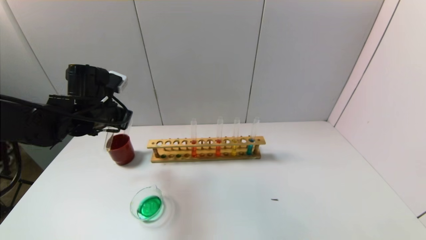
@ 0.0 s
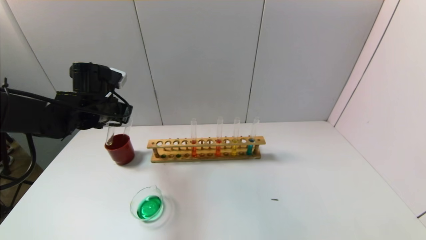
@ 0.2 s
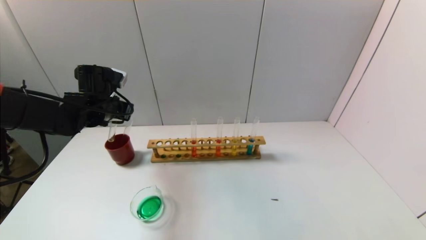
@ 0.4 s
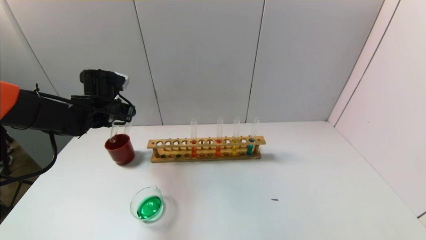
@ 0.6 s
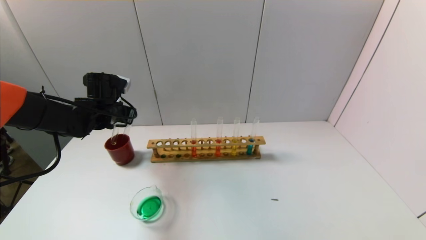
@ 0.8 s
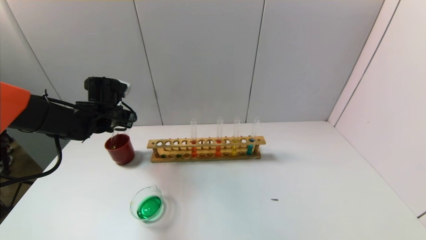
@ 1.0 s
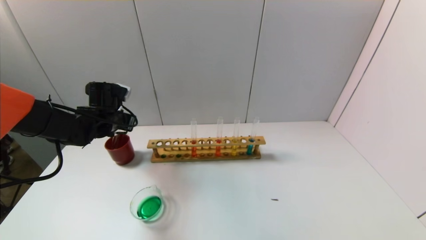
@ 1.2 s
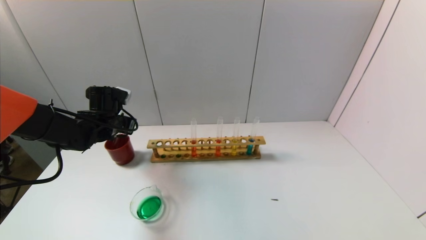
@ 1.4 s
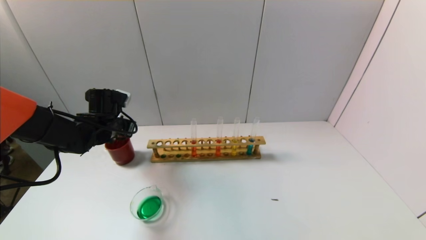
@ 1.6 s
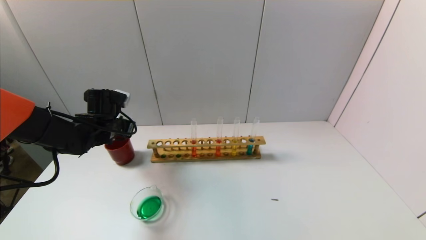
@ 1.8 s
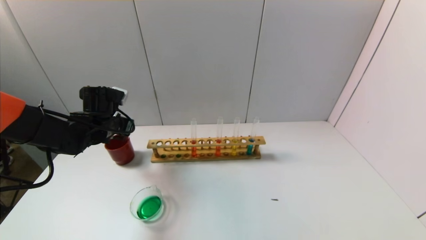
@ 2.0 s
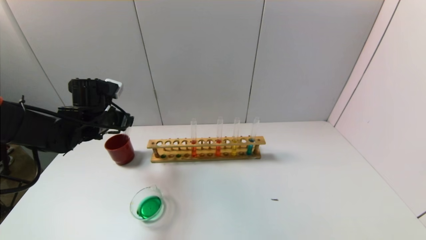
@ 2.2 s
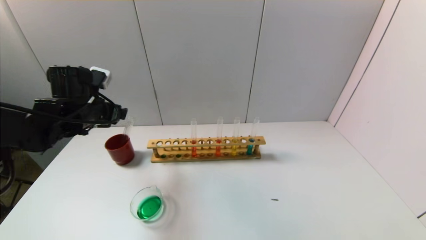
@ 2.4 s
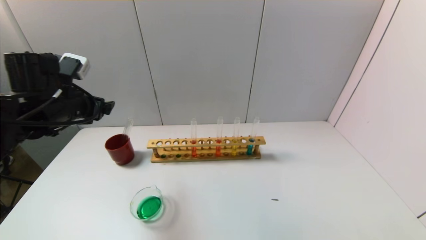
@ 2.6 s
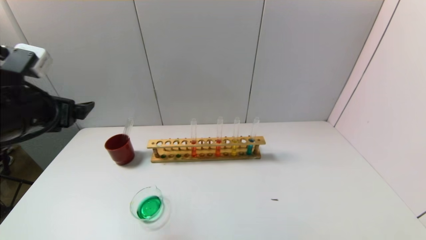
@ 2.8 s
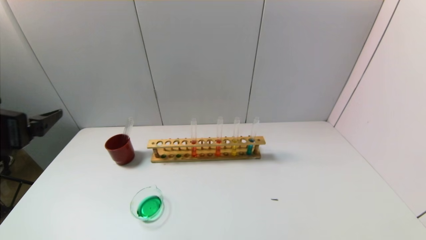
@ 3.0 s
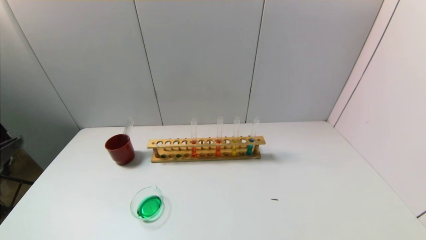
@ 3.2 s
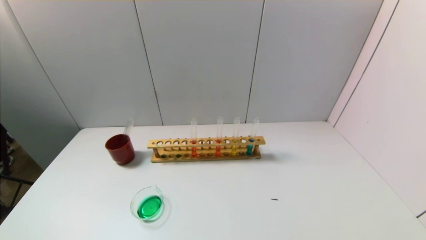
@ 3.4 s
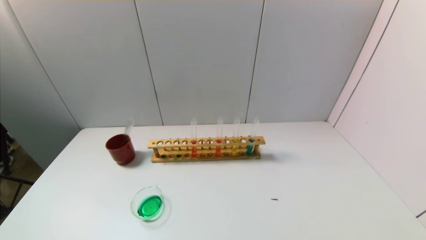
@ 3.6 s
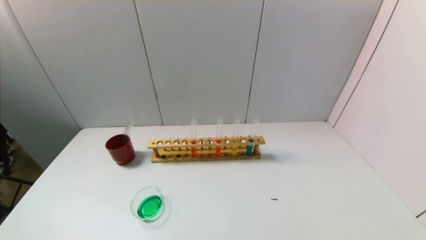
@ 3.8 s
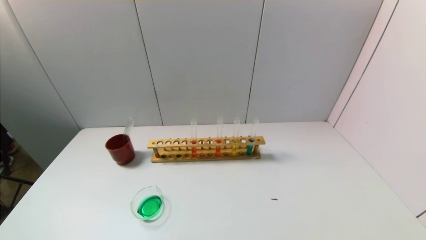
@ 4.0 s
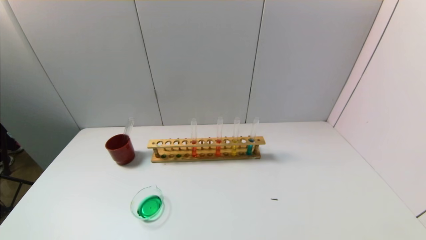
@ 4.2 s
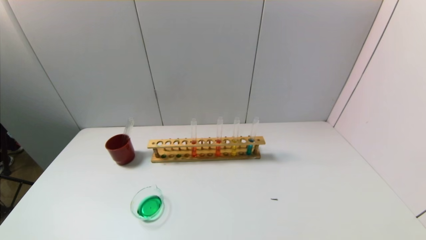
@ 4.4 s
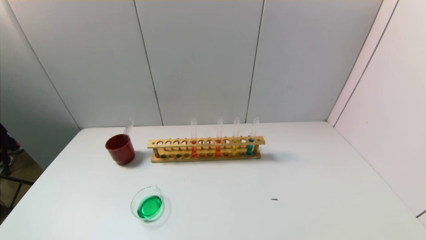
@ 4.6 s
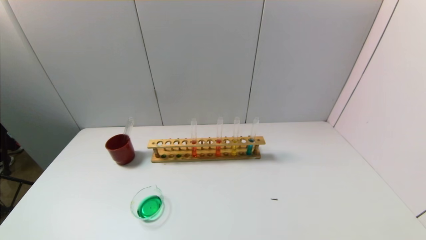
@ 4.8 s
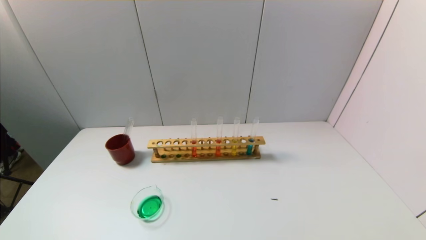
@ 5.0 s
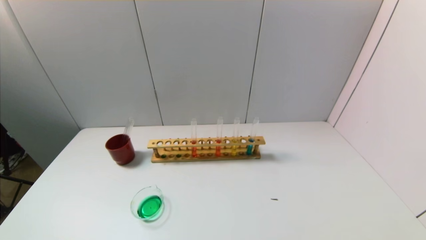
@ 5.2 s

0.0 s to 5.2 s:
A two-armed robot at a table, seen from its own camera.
Task of the whole recording: pick up the test tube with yellow pigment and the test tube with blue pigment by grippers and pour them into the beaker.
Step, 0.0 to 2.0 s: Place the test tube into the brown cup with the left gripper.
0.0 to 1.8 s: The left gripper is displaced downward by roughly 5 cm.
1.8 to 3.4 s: The left gripper travels backward by some 35 cm, and opens.
